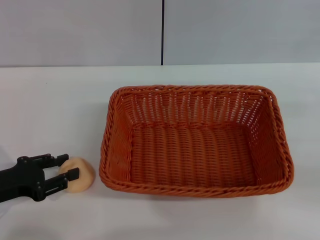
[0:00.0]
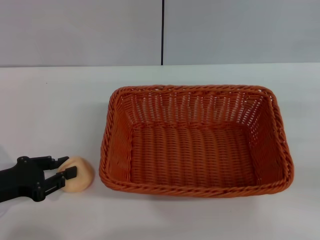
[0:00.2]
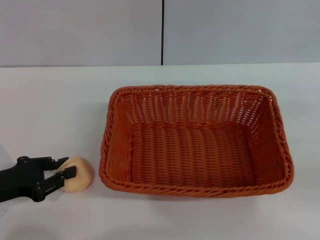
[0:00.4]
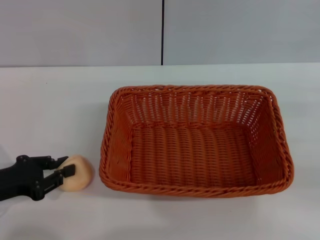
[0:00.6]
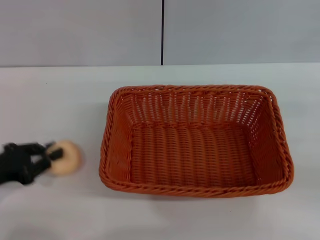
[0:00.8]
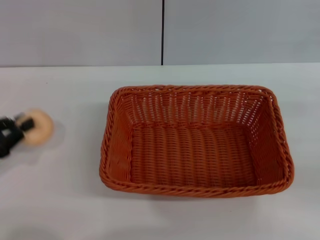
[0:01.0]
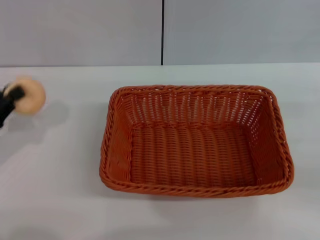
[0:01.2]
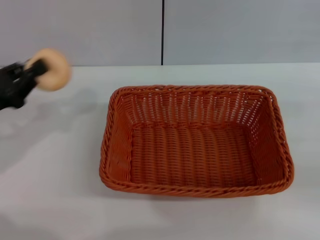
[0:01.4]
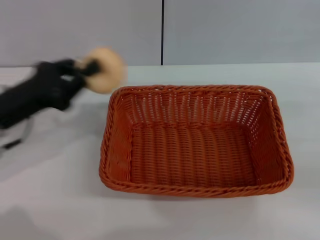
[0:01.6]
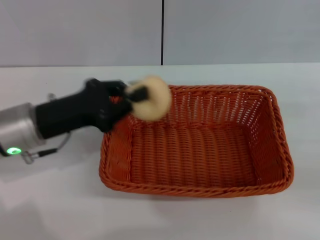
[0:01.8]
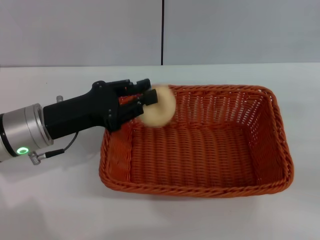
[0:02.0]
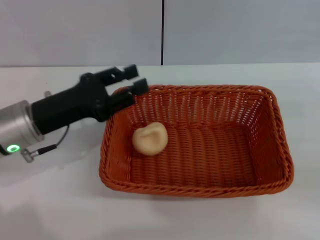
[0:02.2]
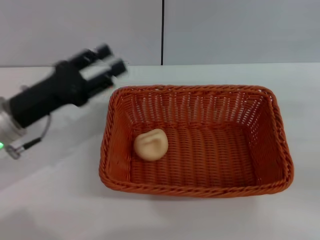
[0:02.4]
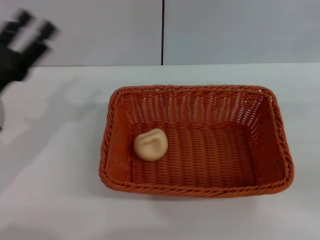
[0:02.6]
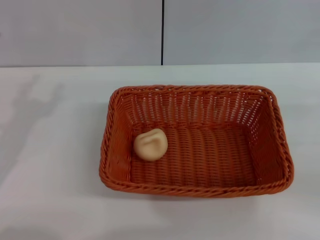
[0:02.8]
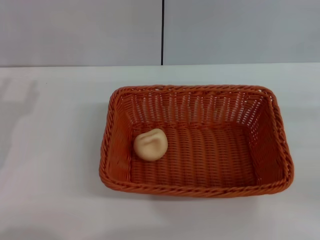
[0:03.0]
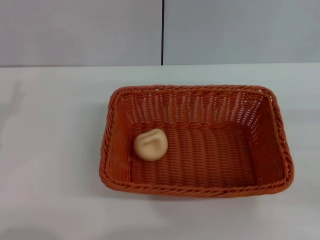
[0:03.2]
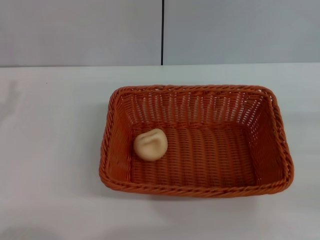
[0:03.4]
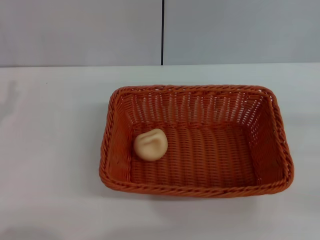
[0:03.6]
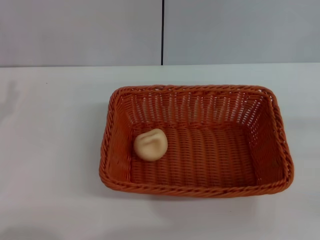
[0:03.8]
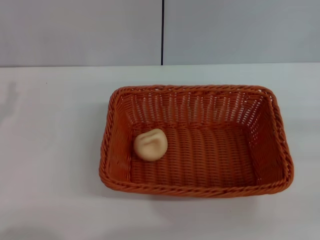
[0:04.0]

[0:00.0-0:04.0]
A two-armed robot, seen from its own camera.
Step, 0:01.0 to 0:02.0: Place the egg yolk pastry into the basket with the left gripper.
0:00.0 to 0:01.4: The left gripper moves upward, approximately 5 cm, and closes.
0:01.4 to 0:02.6: The left gripper opens its fingers.
0:02.6 to 0:04.0: The left gripper heads to the left, covering approximately 5 cm.

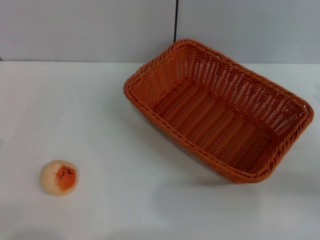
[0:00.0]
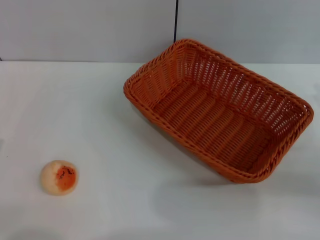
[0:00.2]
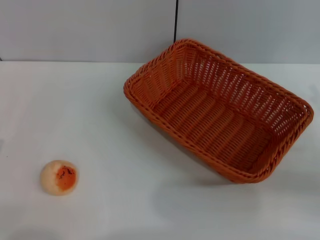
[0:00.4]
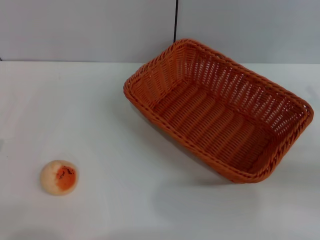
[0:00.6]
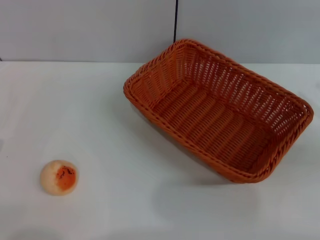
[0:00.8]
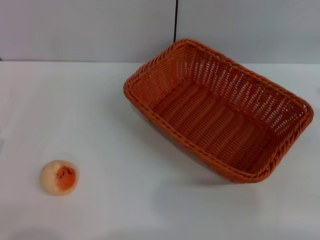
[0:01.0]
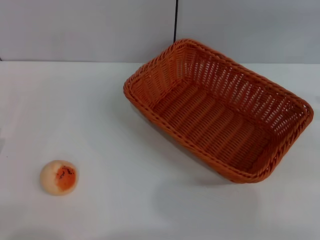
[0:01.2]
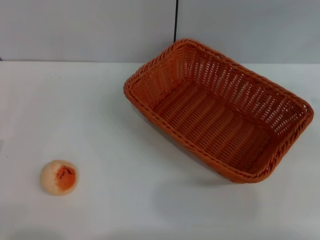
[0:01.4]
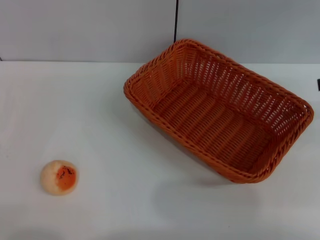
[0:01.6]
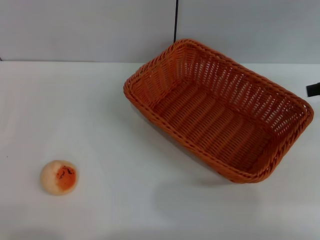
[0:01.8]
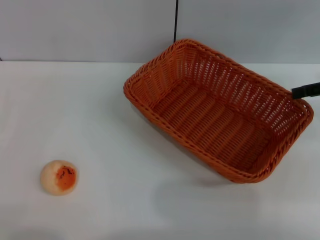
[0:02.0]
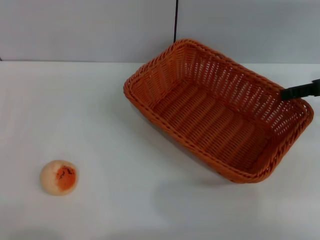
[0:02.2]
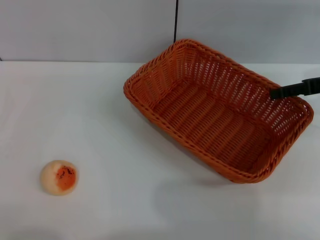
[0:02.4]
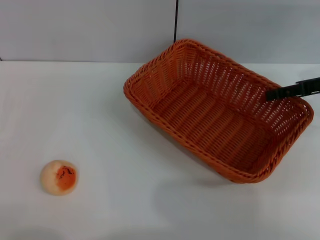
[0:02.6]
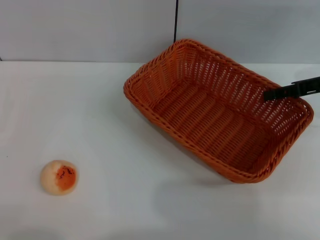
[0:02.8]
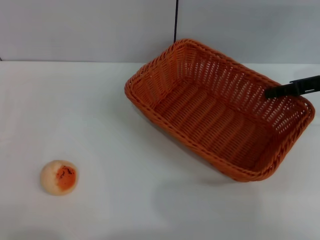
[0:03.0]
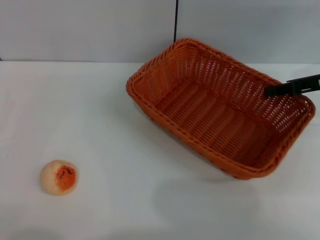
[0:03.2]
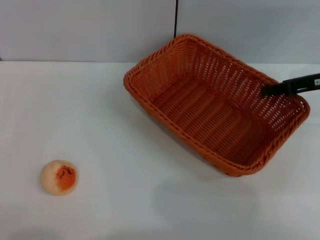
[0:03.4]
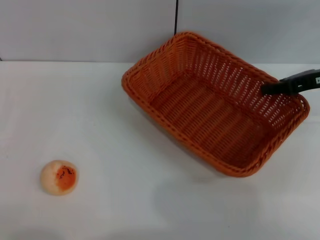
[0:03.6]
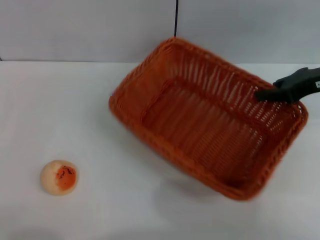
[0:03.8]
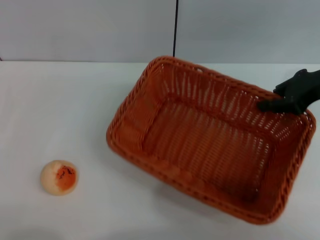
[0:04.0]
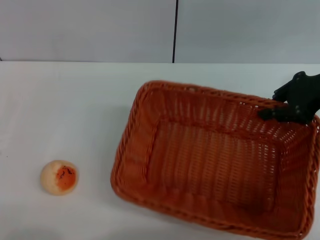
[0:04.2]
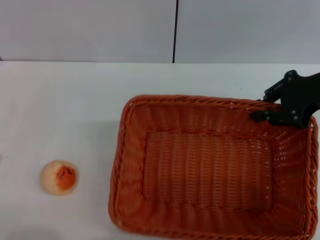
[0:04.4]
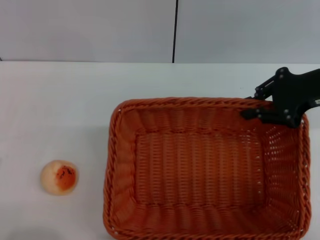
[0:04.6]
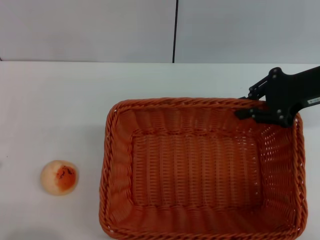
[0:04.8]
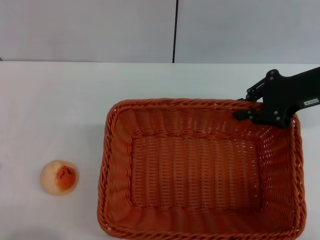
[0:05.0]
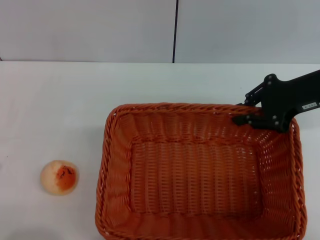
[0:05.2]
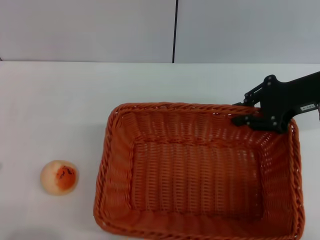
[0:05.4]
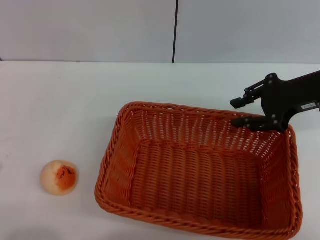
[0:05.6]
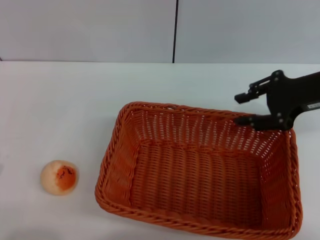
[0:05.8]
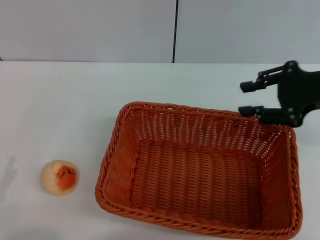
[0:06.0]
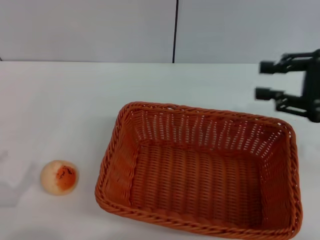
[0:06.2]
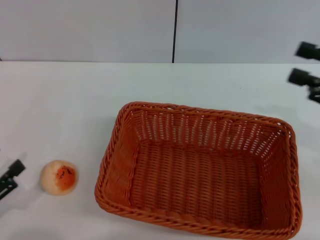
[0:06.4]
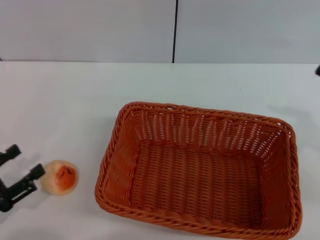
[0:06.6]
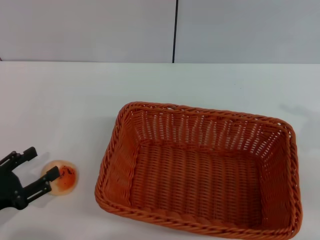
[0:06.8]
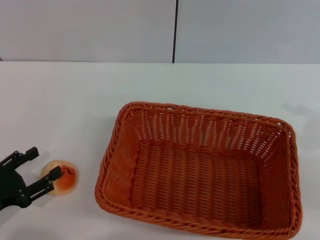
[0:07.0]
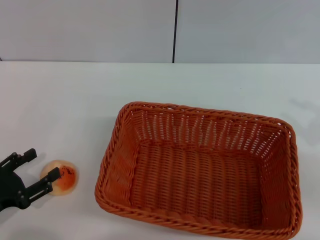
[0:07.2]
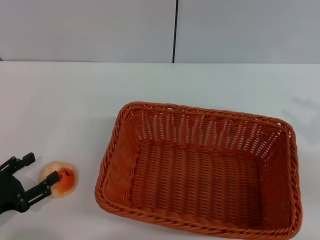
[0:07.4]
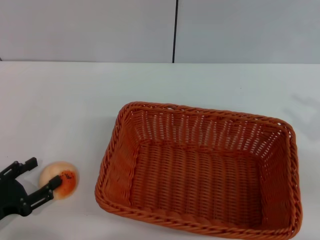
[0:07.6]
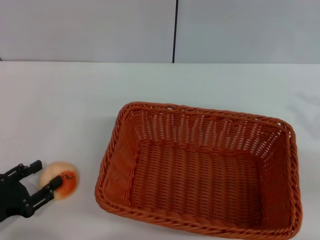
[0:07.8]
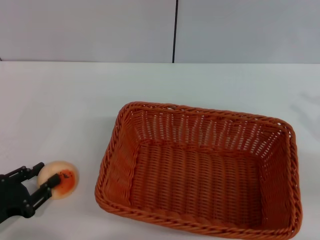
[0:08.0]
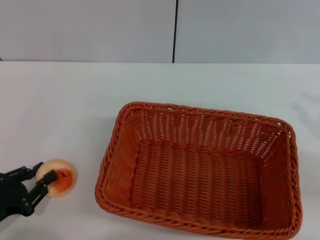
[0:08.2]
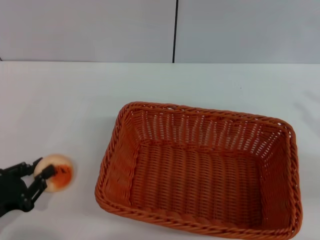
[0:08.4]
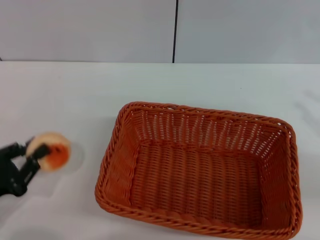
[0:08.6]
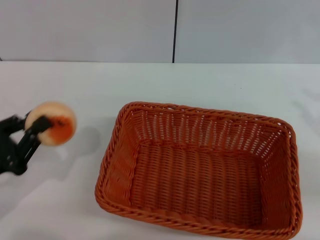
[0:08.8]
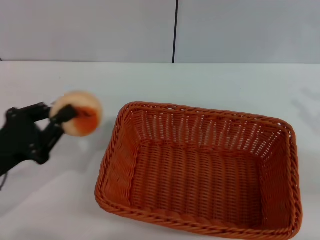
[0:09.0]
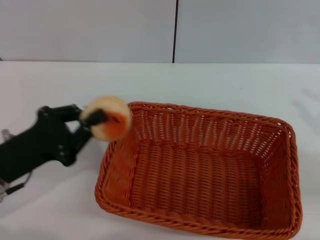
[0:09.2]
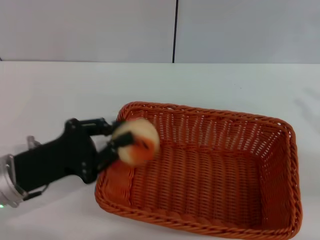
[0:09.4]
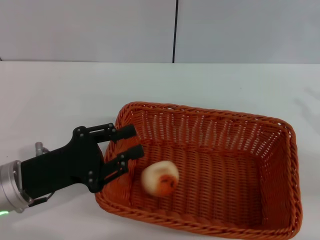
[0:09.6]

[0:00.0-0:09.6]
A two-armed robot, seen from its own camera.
Step, 0:00.0 to 0:05.8: Move the basket to the center of view with the right gripper.
Step, 0:06.0 to 0:08.8: Pick up the egg yolk pastry with the left gripper.
0:00.0 to 0:01.6: The right gripper travels upward and forward by about 20 cm.
0:01.6 to 0:03.2: The right gripper travels downward, to the left and forward by some 10 cm, and closes its fingers.
0:03.2 to 0:04.8: The right gripper shifts by roughly 5 cm, and closes up.
0:04.8 to 0:06.4: The right gripper is displaced backward and to the right by some 10 cm, and opens up.
0:06.4 to 0:08.0: The right gripper changes place by about 5 cm. Meanwhile the left gripper moves about 5 cm.
0:08.0 to 0:09.6: The left gripper heads to the right, forward and upward, covering some 10 cm, and closes its fingers.

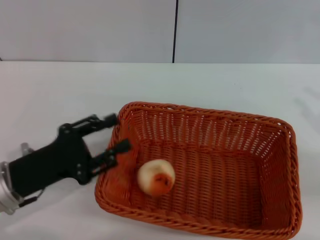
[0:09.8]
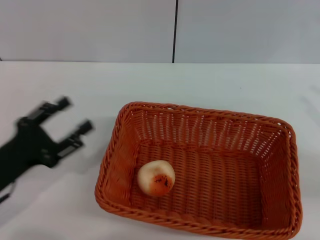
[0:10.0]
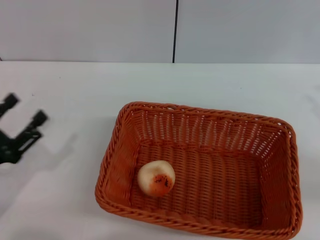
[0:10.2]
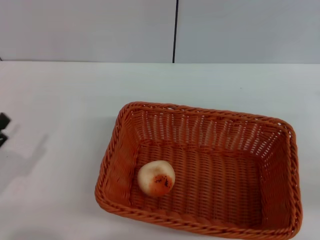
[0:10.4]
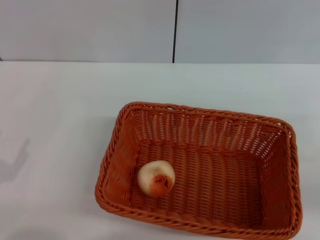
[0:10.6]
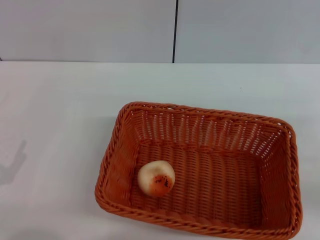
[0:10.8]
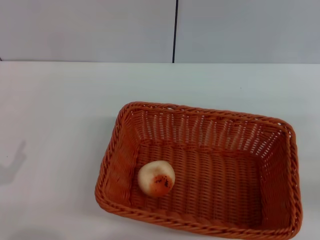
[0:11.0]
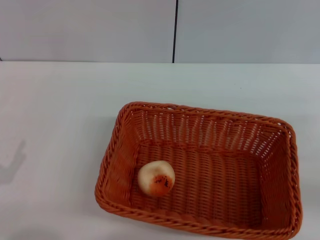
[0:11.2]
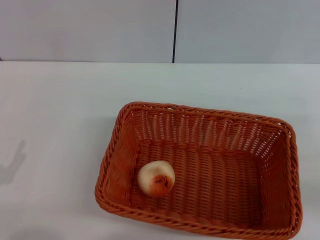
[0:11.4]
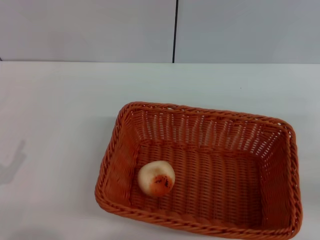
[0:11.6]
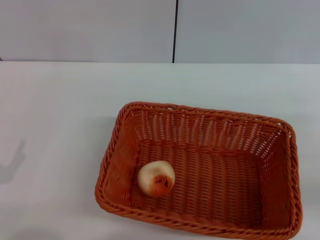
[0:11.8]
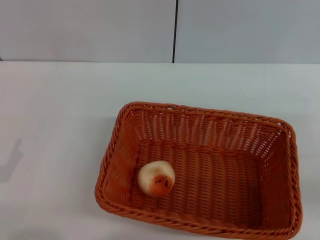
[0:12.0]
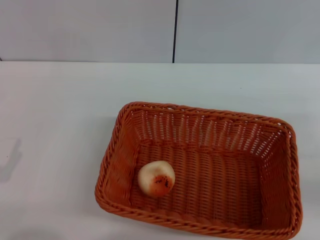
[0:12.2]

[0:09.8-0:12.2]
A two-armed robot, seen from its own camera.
0:09.8 to 0:11.0: The left gripper is displaced to the left and backward by approximately 15 cm, and opens its fingers; the right gripper ends up roughly 5 cm from where it was.
0:11.0 to 0:12.2: Neither gripper changes place.
